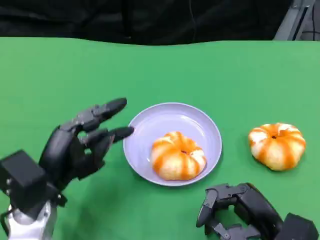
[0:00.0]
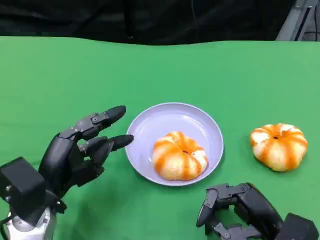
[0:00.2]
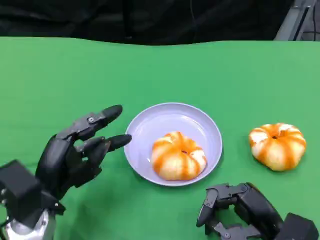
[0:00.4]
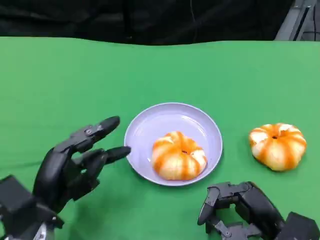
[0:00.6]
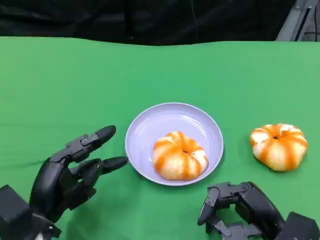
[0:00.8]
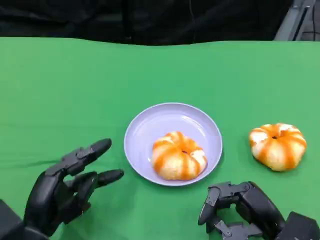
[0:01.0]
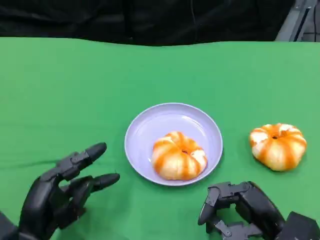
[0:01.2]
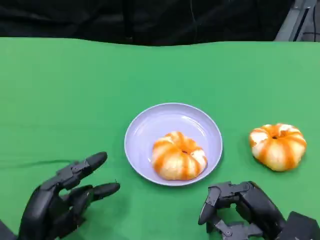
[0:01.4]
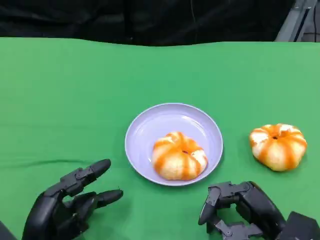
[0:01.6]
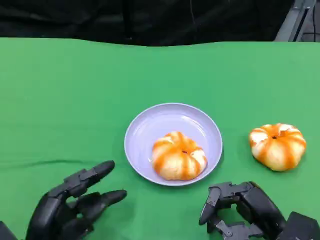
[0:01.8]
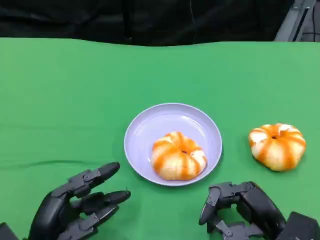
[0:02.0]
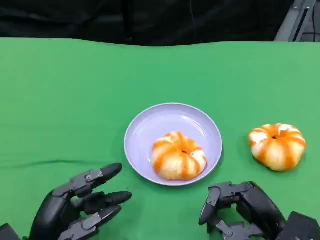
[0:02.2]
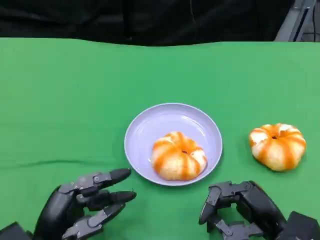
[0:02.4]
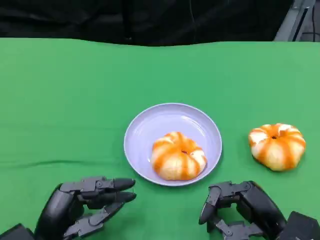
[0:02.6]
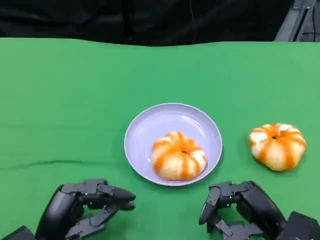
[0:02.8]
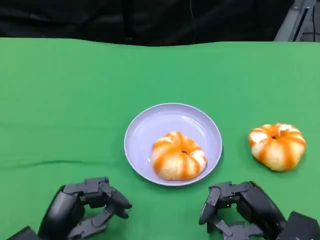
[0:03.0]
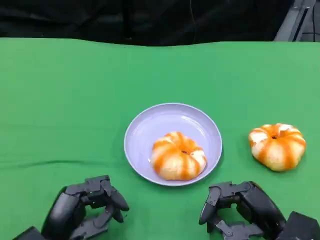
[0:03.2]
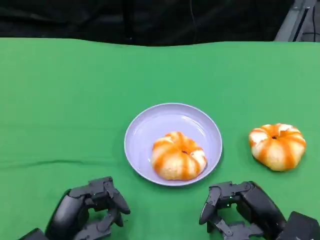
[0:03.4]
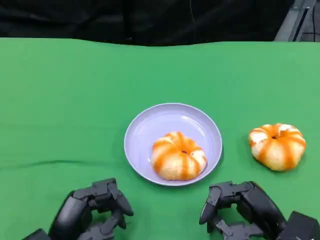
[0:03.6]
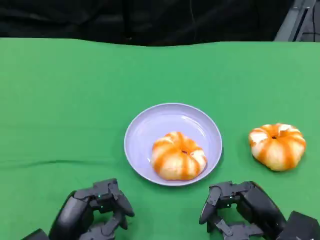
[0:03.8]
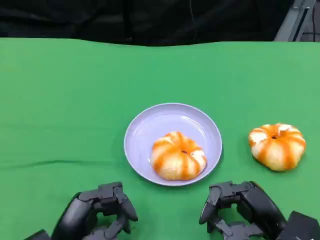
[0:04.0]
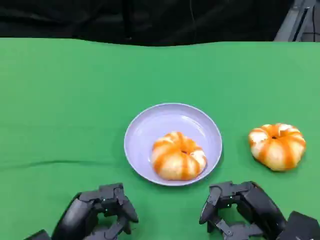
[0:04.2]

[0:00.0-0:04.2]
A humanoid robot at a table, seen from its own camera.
Task of the whole recording: Grasp the bread from the table and place it into the plate.
0:00.0 to 0:01.4: The left hand shifts roughly 10 cm backward and downward.
0:01.4 to 0:04.2: The hands move only a little.

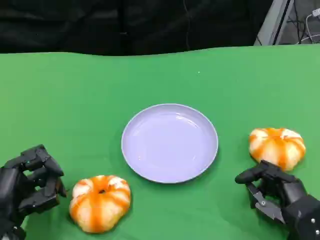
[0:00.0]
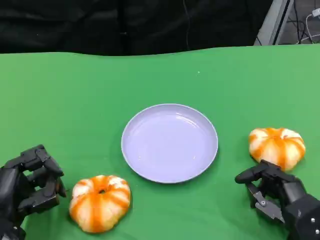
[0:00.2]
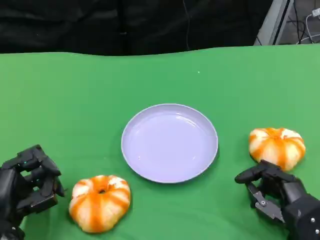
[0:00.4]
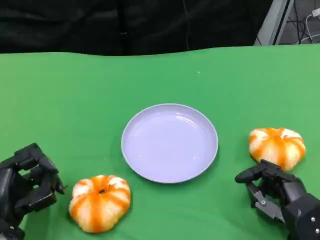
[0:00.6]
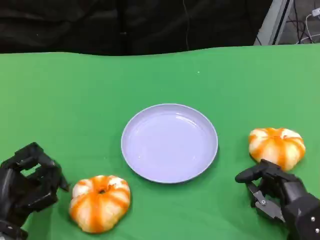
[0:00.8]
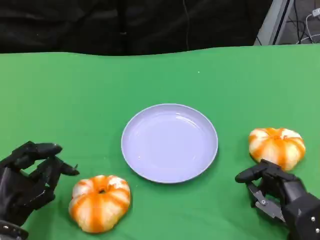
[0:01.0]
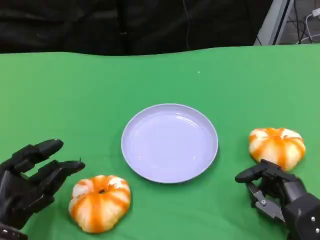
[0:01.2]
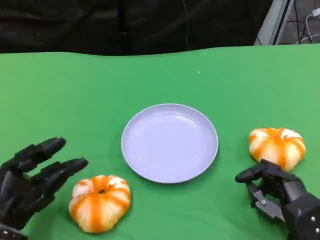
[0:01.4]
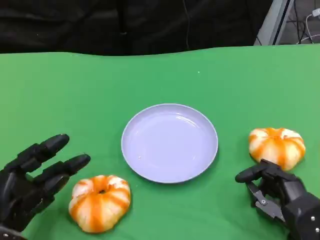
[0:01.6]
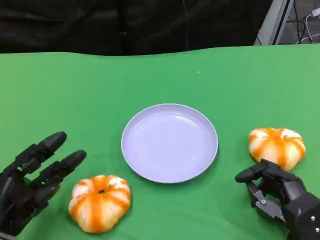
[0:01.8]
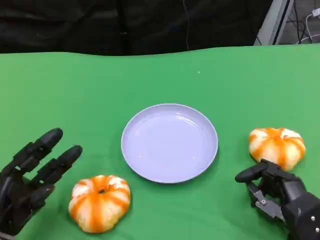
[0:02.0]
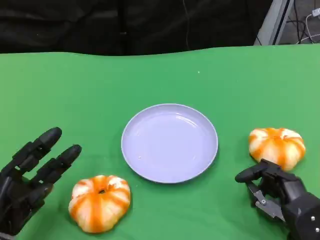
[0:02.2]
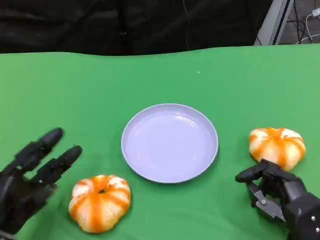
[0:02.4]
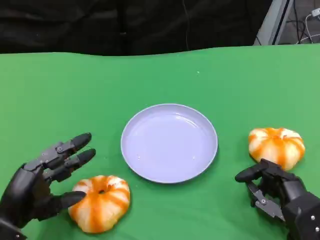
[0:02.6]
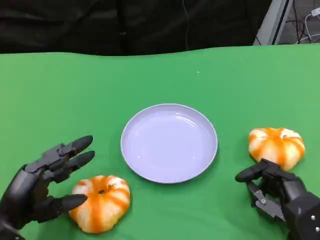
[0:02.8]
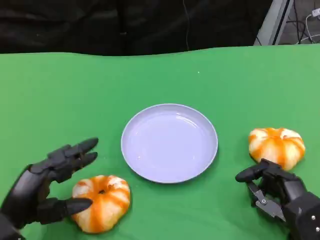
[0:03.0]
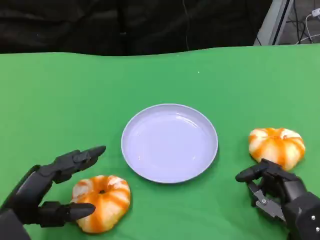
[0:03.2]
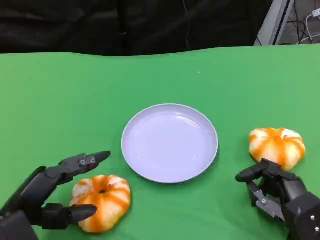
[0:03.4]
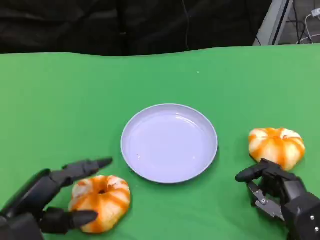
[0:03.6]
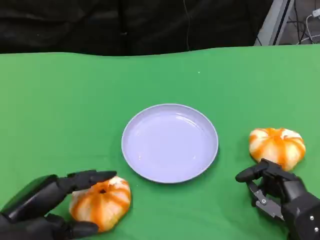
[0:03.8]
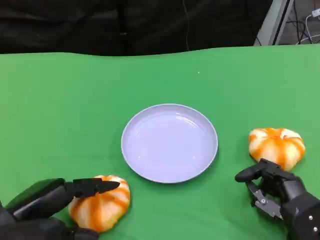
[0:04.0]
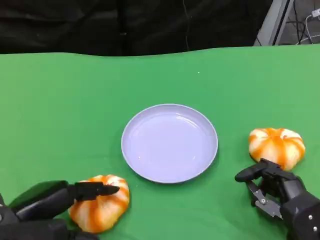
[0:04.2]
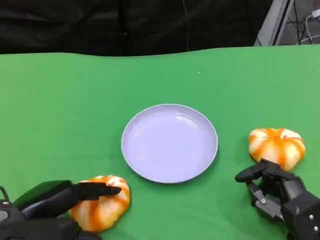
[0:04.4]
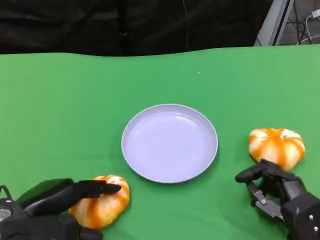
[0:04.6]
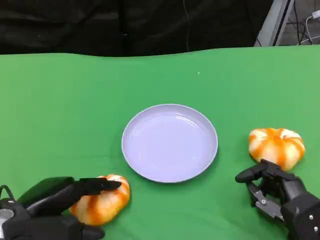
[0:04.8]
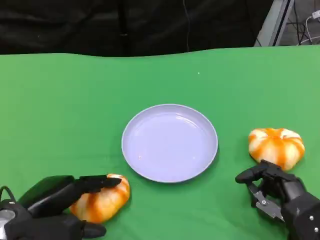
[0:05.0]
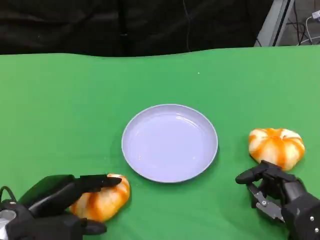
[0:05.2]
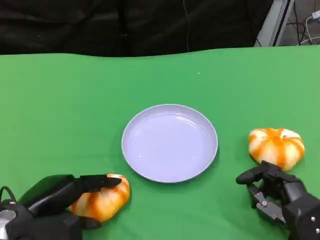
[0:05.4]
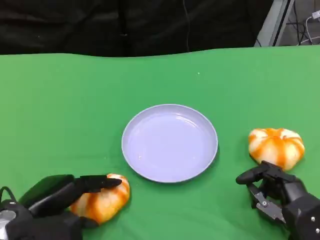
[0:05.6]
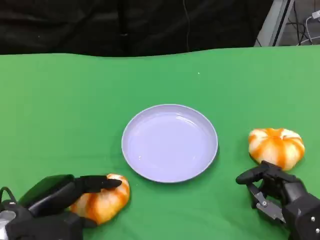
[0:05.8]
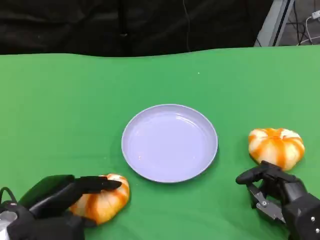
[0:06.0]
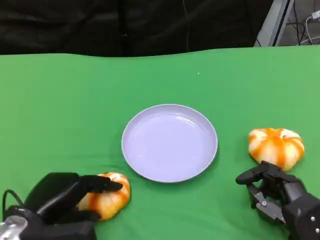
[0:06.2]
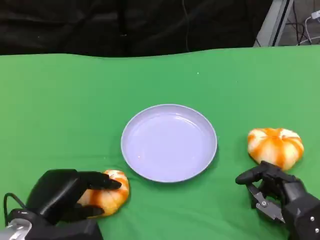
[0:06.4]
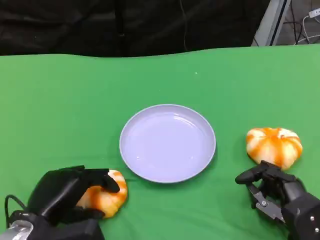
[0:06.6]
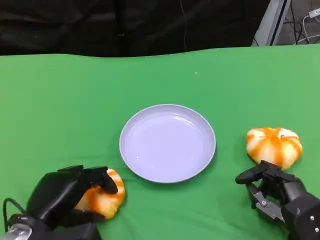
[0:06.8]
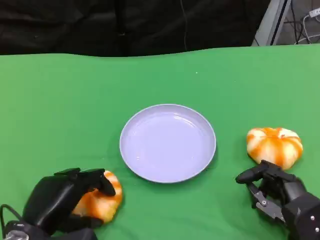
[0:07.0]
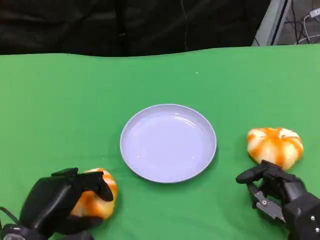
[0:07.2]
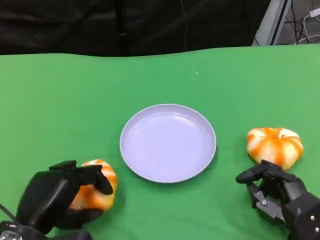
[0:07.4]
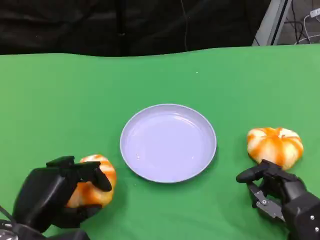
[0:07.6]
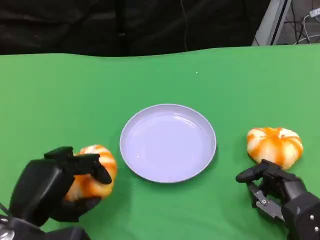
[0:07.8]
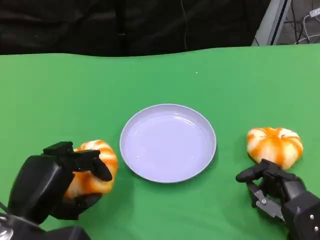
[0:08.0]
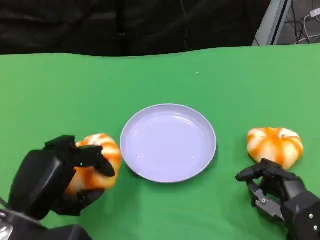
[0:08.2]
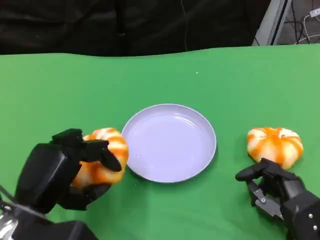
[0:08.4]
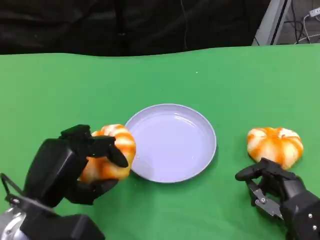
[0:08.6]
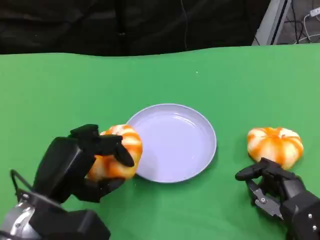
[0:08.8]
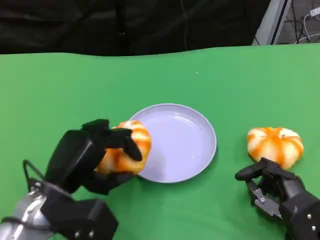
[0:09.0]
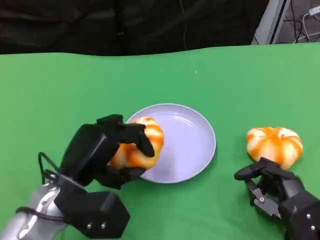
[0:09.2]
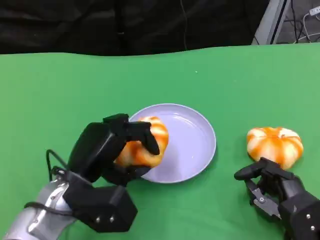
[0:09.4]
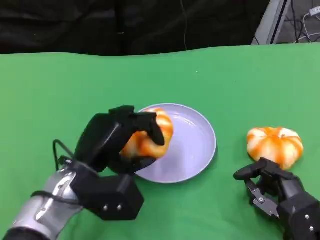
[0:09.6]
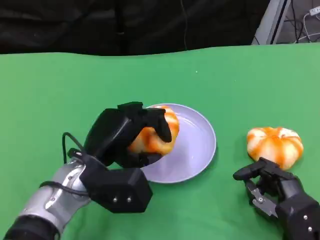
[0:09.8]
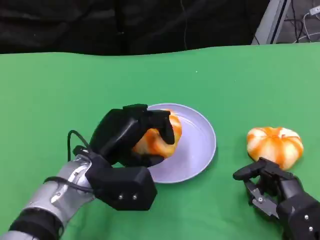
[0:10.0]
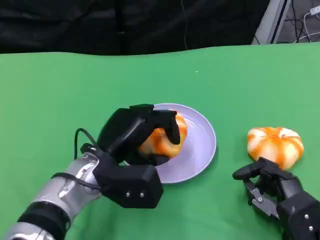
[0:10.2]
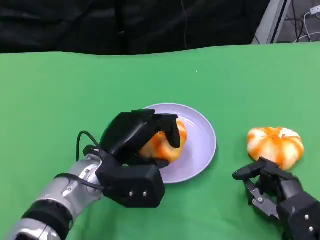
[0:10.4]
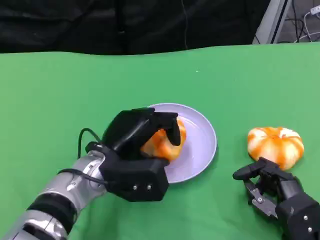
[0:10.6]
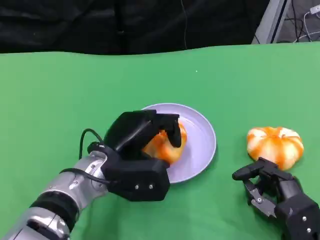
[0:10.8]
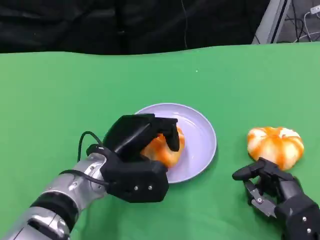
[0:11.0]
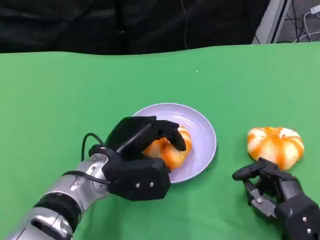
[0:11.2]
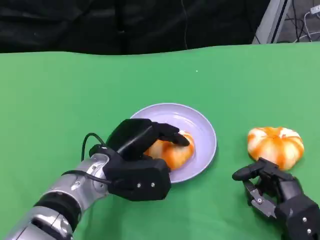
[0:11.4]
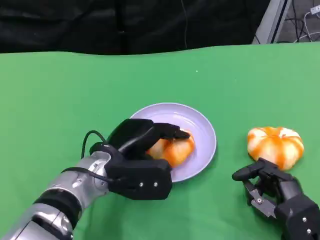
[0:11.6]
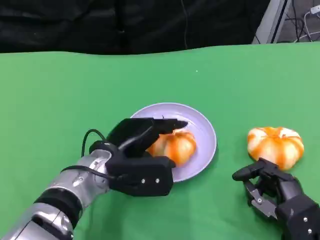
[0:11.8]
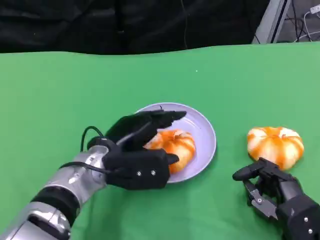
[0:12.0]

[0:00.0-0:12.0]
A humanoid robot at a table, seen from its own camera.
Task of the whole recording: Grasp the bread from the table and place it into the plate.
0:04.4 to 0:06.0: The hands move only a little.
0:07.6 to 0:09.0: The left hand moves forward, roughly 5 cm.
0:09.0 to 0:10.4: The left hand is displaced to the right by roughly 5 cm.
0:10.4 to 0:12.0: The hands move only a little.

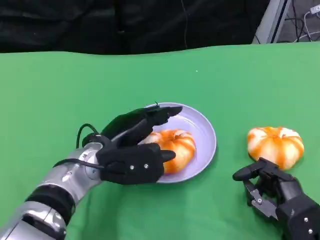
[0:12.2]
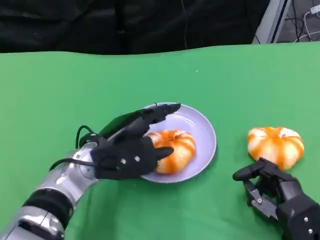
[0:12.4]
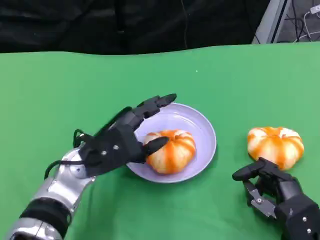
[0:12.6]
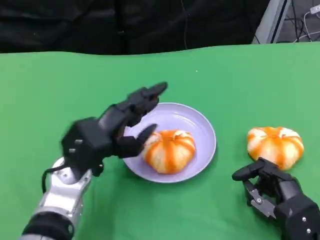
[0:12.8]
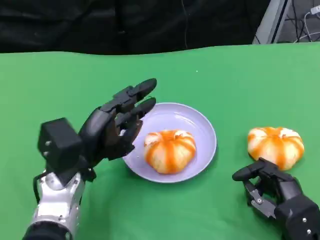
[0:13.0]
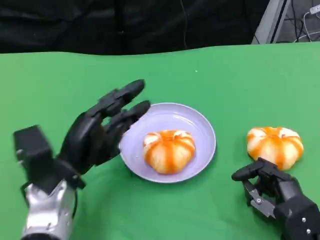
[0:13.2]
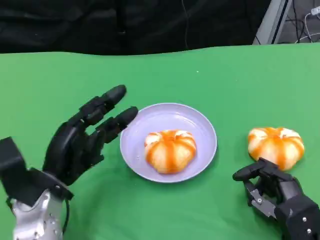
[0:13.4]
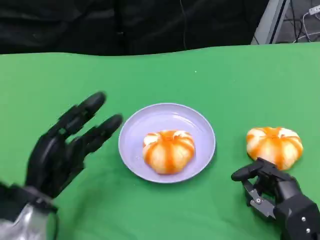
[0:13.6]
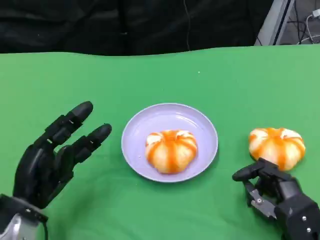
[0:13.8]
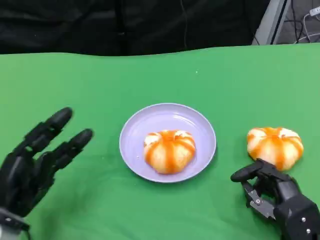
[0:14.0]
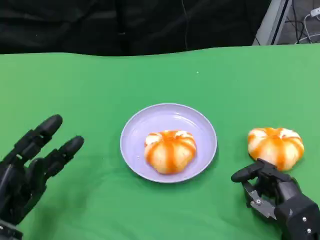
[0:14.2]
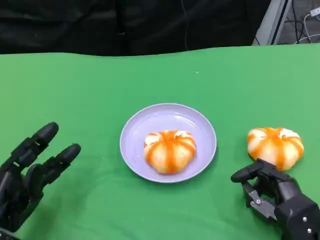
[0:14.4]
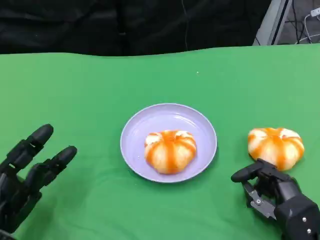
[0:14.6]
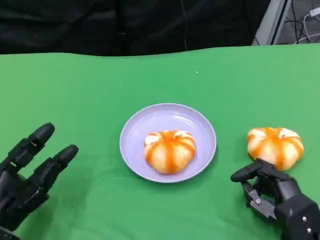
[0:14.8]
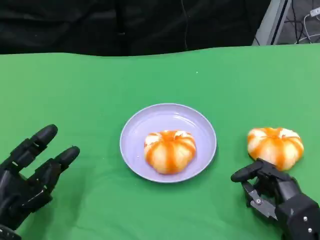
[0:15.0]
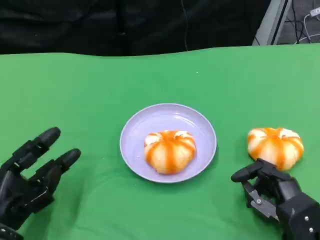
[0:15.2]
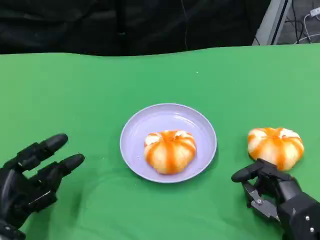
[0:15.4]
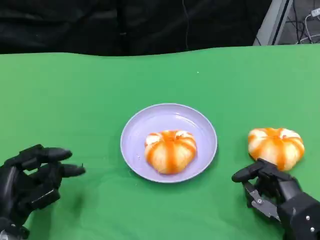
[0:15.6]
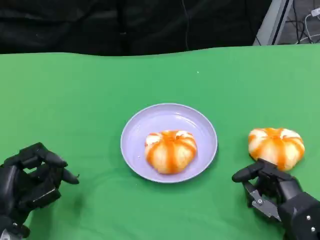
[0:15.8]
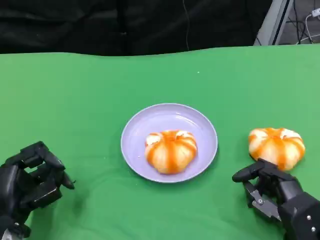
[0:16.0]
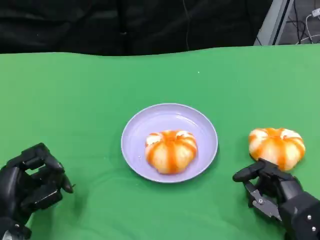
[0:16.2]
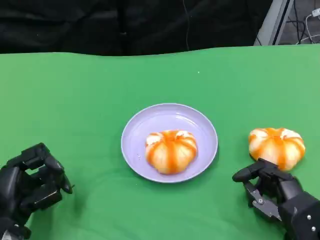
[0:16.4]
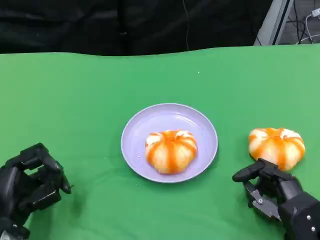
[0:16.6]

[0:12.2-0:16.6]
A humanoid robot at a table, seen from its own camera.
Task of the whole recording: Grasp the bread from the table and place it into the plate.
0:12.2 to 0:13.6: The left hand is displaced to the left and backward by some 10 cm.
0:13.6 to 0:15.2: The left hand changes place by approximately 5 cm.
0:15.2 to 0:16.6: There are only small adjustments of the hands.

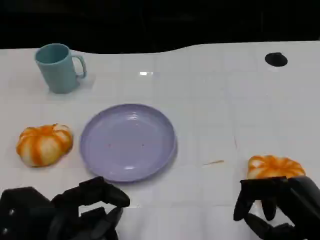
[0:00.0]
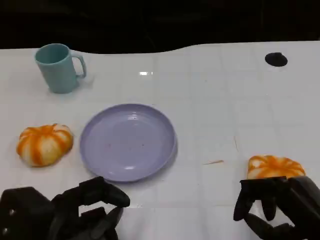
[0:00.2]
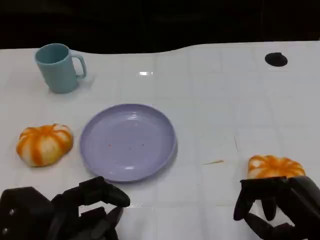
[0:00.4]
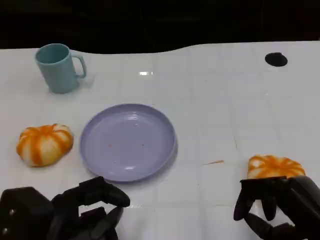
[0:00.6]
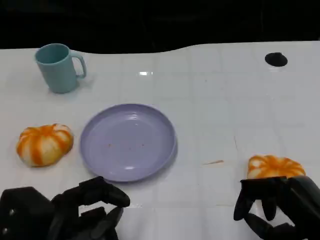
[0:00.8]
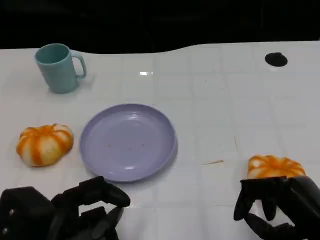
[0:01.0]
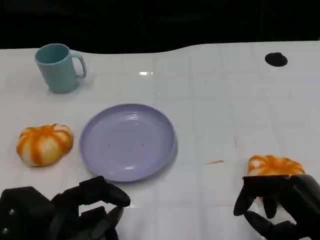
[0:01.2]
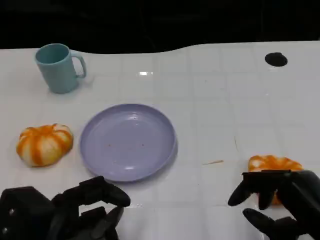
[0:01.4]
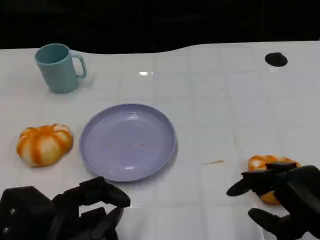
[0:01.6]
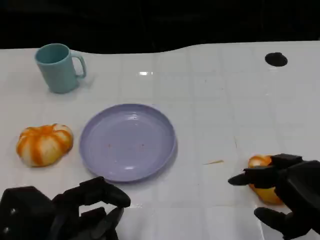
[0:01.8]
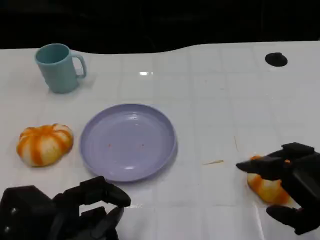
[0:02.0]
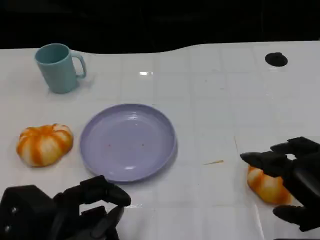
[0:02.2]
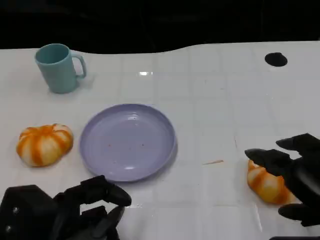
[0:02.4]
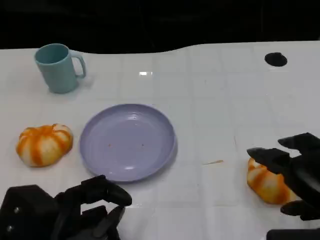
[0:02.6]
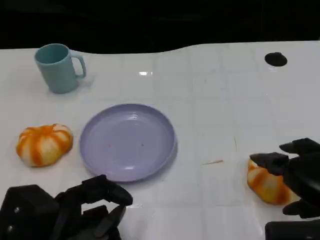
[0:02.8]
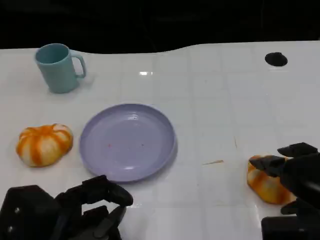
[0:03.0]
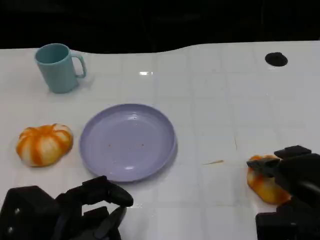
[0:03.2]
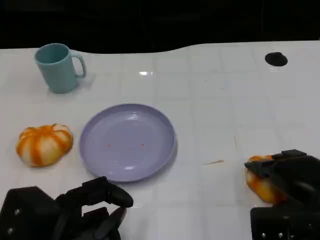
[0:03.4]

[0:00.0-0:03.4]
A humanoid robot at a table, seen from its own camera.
Task of the whole recording: Grasp the bread from the table and place it into the plate.
0:00.0 to 0:01.6: The hands make only small movements.
0:01.6 to 0:03.4: The right hand travels forward by roughly 5 cm.
